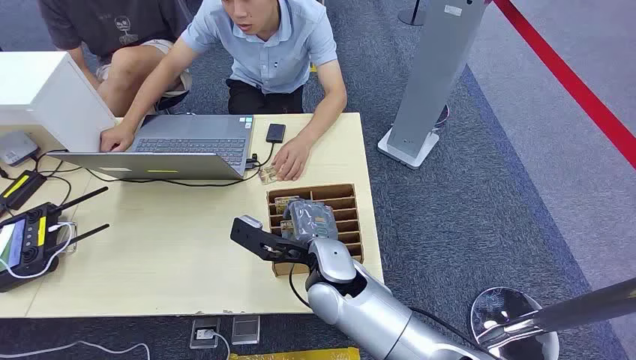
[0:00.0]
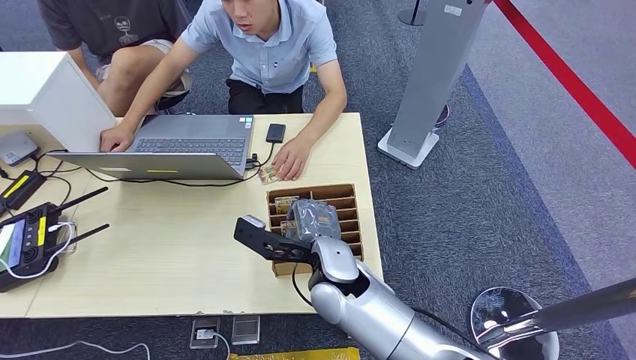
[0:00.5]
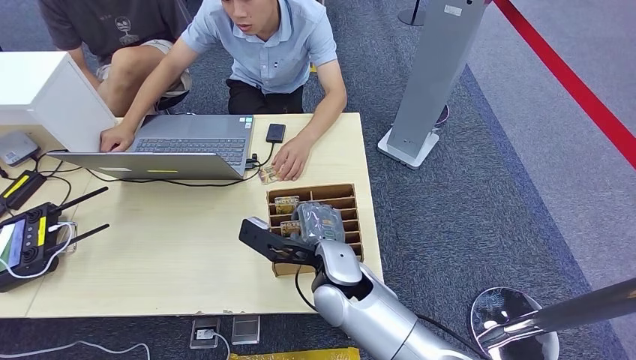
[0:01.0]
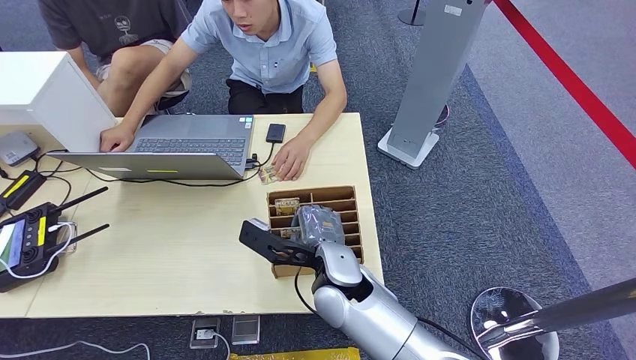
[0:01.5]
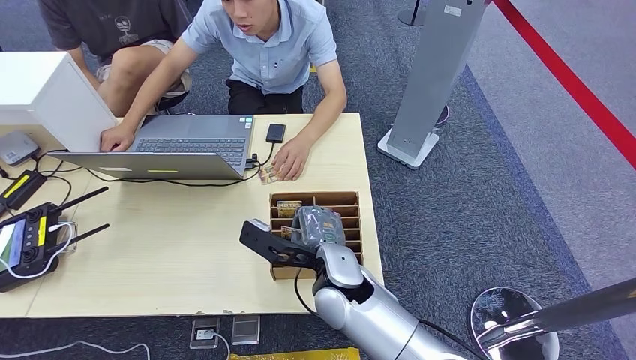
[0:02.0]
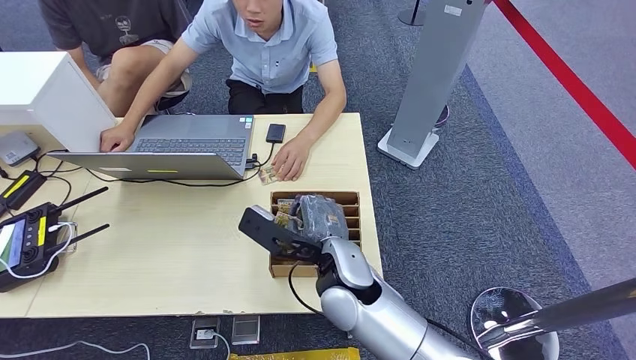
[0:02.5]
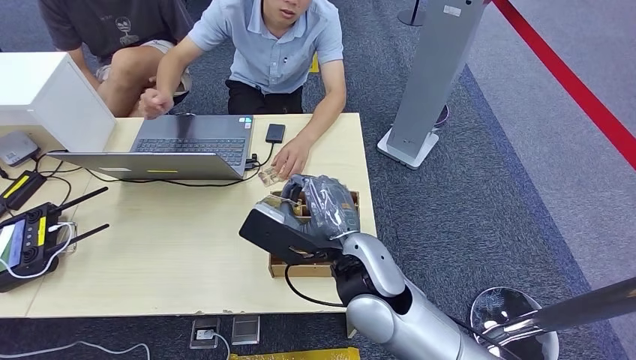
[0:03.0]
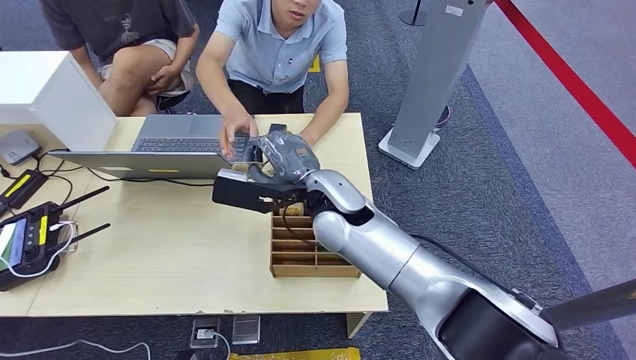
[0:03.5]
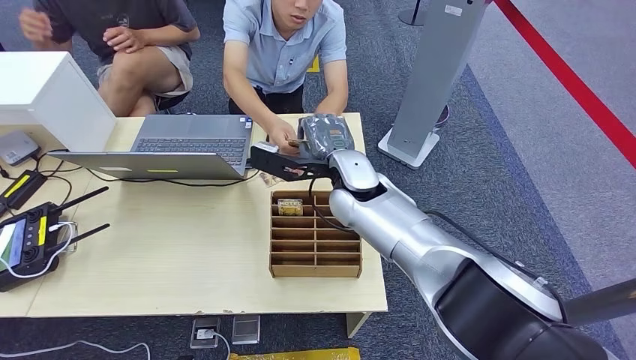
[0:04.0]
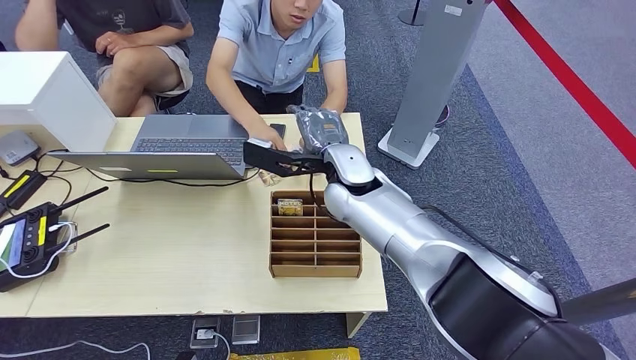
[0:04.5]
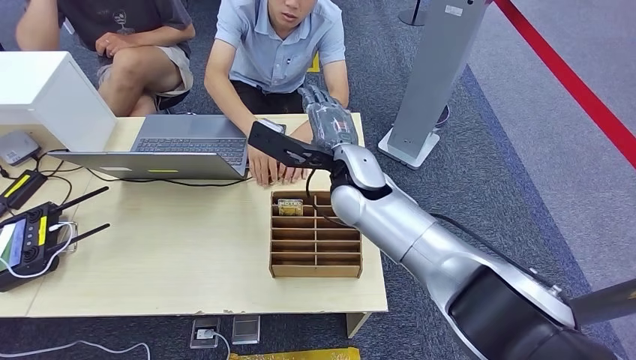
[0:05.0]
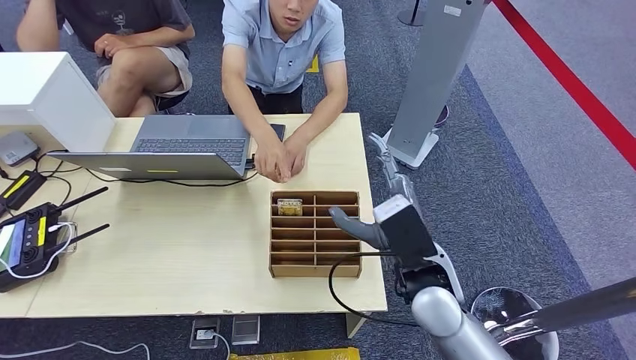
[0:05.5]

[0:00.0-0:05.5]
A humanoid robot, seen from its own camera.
Step, 0:00.0 to 0:03.0: Pick up the room card from the card holder.
Step, 0:03.5 to 0:05.5: Hand the room card to the target.
0:03.5 to 0:05.5: The right hand is displaced to the right and backward by about 15 cm.
